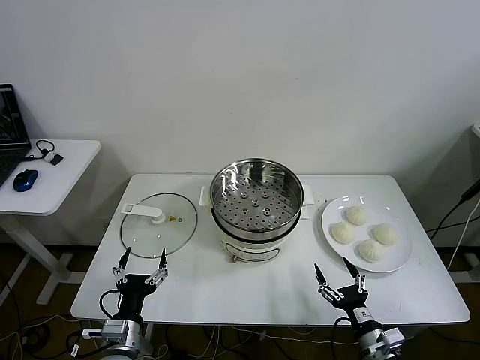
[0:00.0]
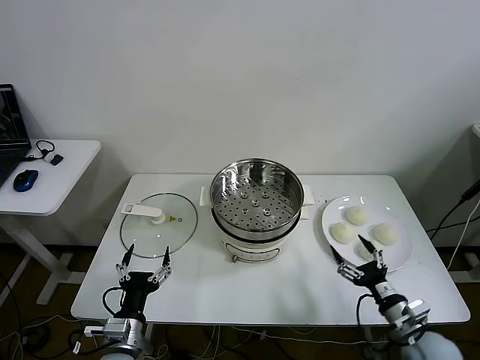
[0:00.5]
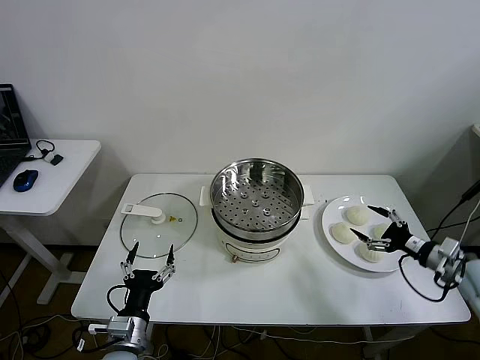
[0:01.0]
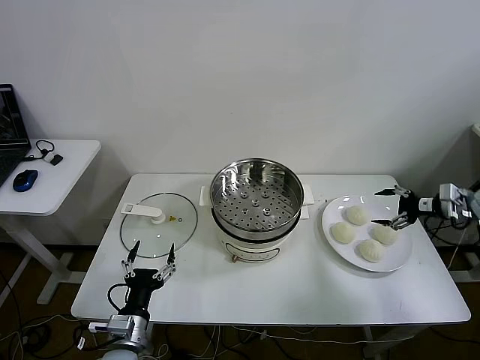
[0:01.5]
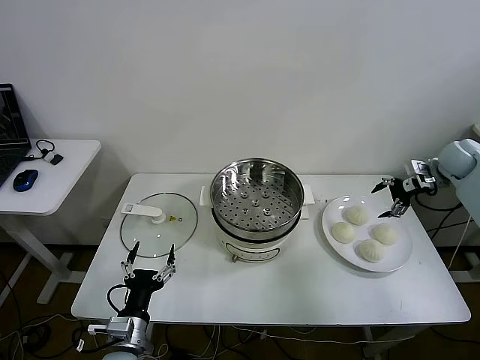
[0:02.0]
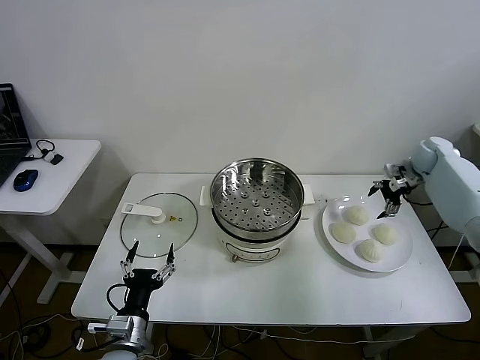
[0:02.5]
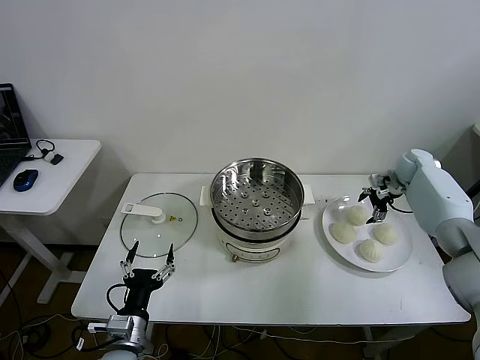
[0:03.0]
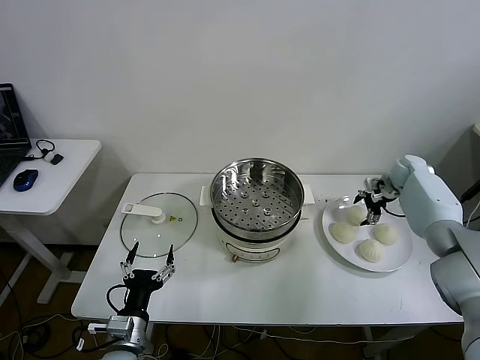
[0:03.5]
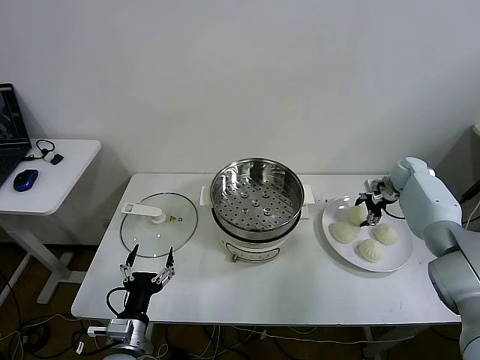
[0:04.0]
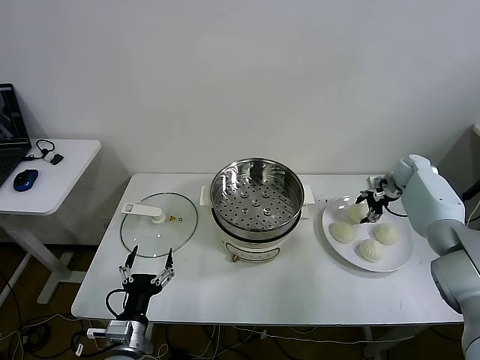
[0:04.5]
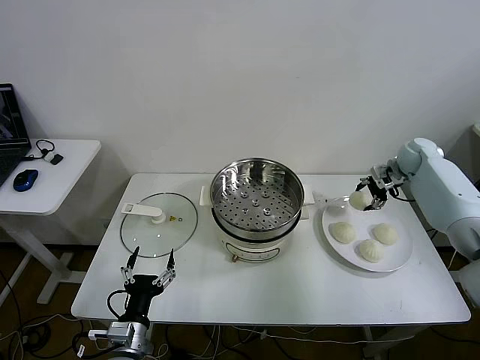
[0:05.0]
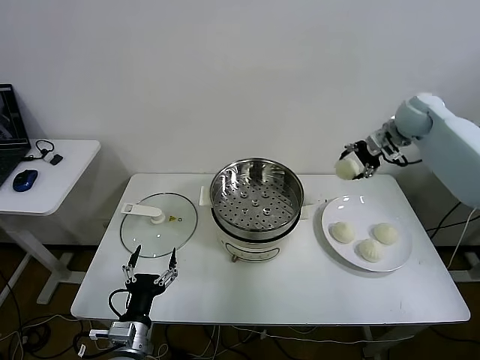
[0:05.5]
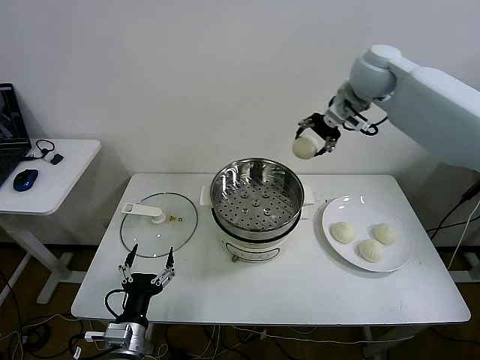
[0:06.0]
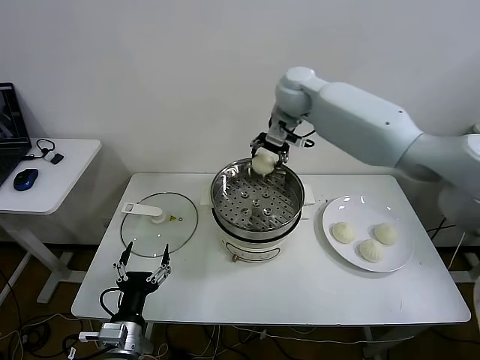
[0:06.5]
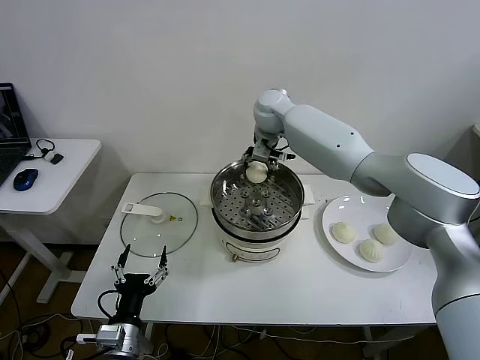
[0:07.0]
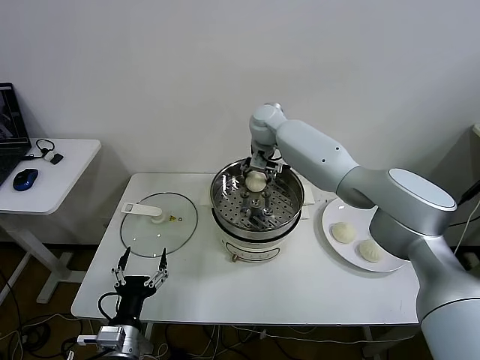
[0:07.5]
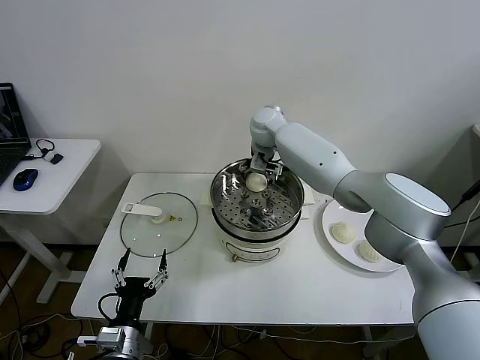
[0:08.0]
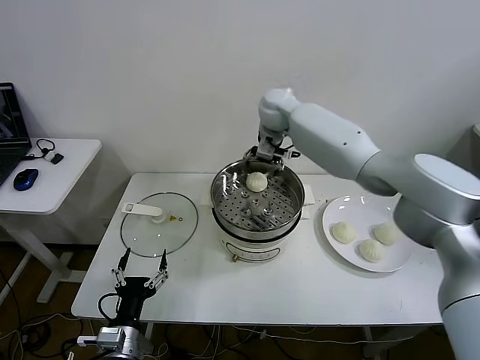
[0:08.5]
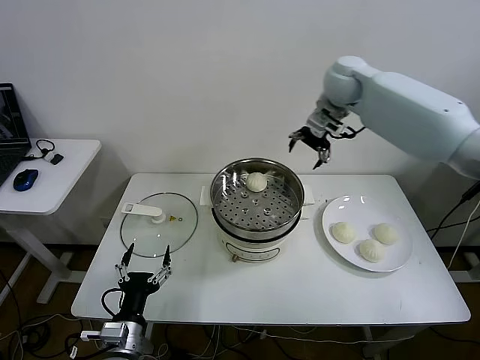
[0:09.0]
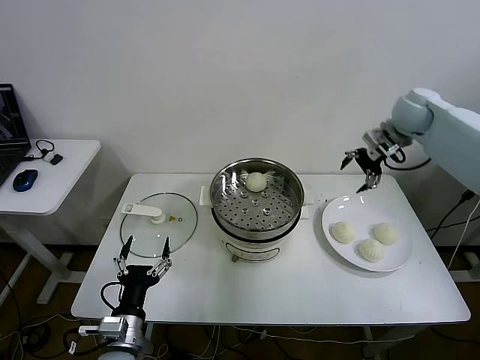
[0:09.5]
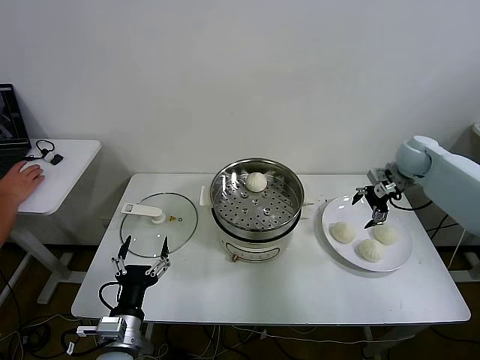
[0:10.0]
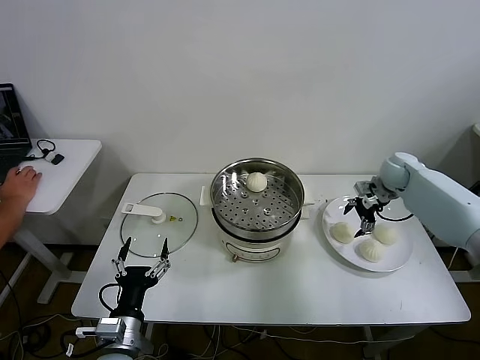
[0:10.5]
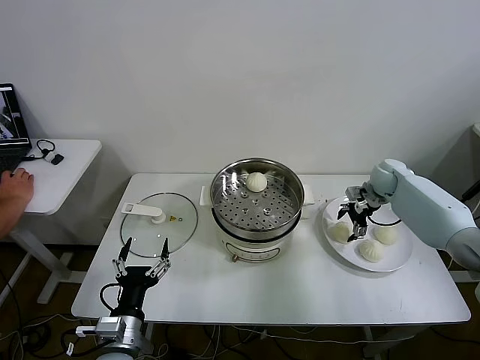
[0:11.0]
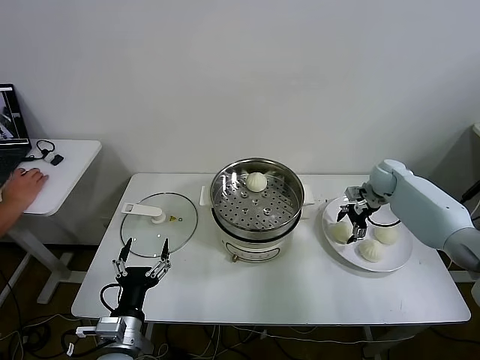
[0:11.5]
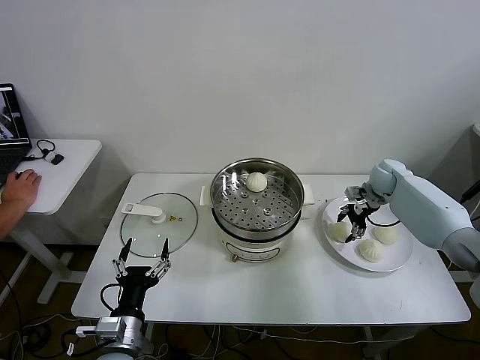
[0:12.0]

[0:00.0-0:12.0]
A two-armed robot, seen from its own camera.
Step, 0:00.0 to 0:04.0: Grasp the baozi in the plate with right gripper.
Step, 0:04.5 to 0:08.0: Place the baozi on the steamer with right gripper.
0:02.0 to 0:04.0: The right gripper moves downward and to the left, some 10 cm, and closes its fingers.
0:04.0 to 0:06.0: The right gripper heads upward and to the left, covering about 40 cm.
0:06.0 to 0:08.0: The right gripper moves to the left and downward, roughly 25 cm, and opens.
0:08.0 to 0:10.0: The right gripper heads to the right, covering approximately 35 cm.
0:10.0 to 0:12.0: The right gripper moves downward, approximately 10 cm, and closes up.

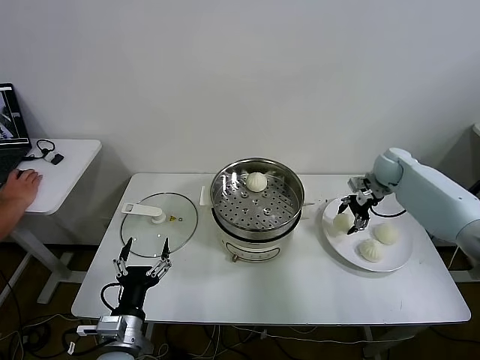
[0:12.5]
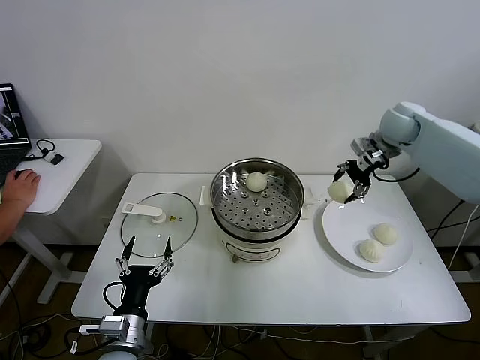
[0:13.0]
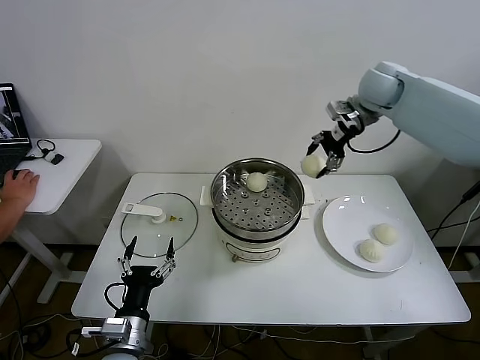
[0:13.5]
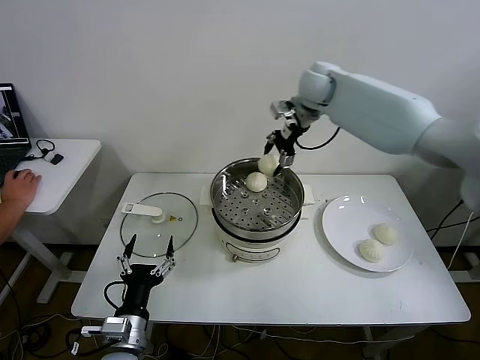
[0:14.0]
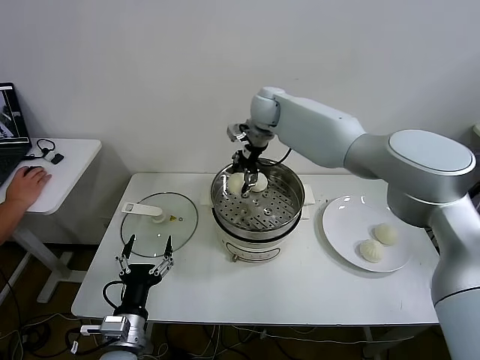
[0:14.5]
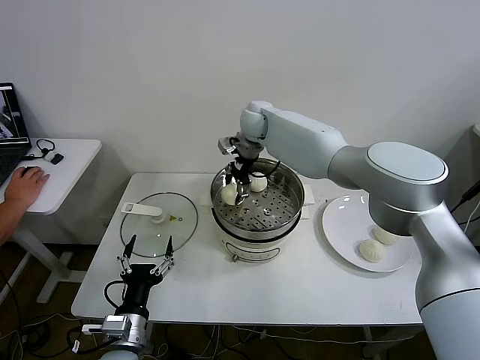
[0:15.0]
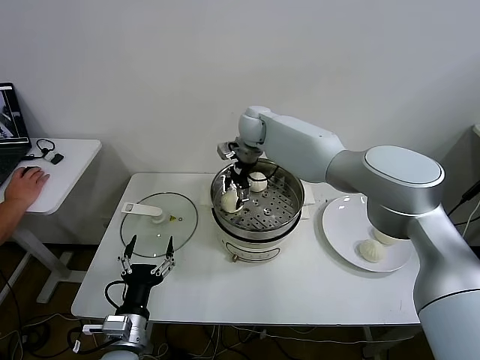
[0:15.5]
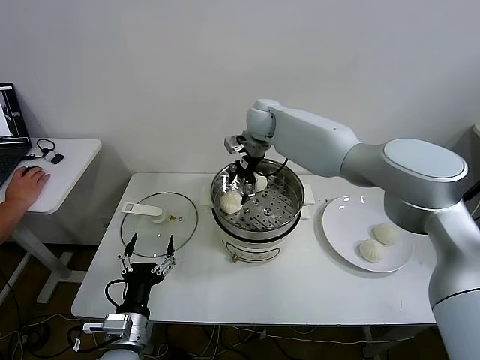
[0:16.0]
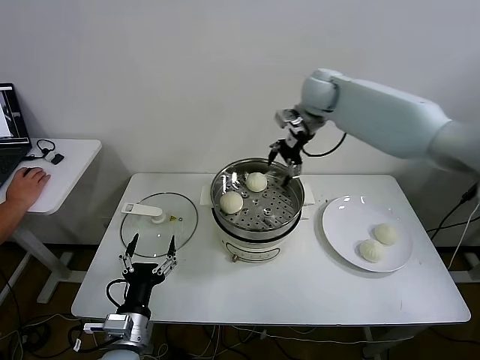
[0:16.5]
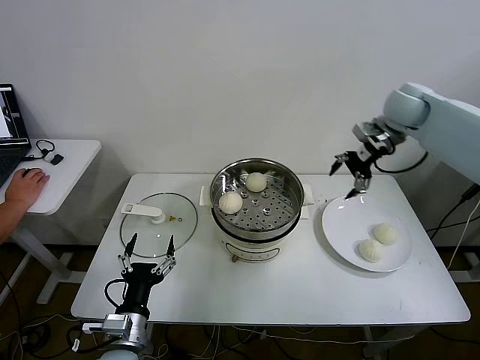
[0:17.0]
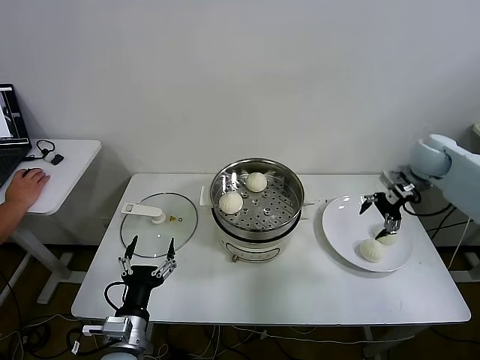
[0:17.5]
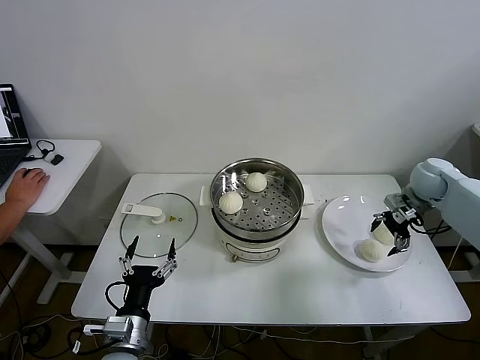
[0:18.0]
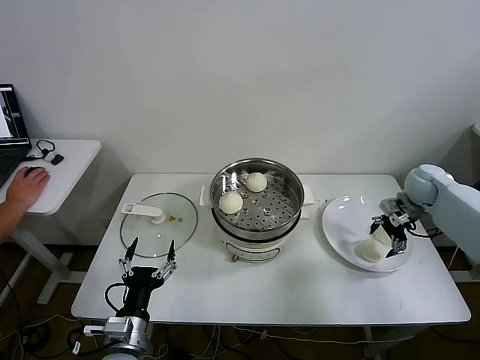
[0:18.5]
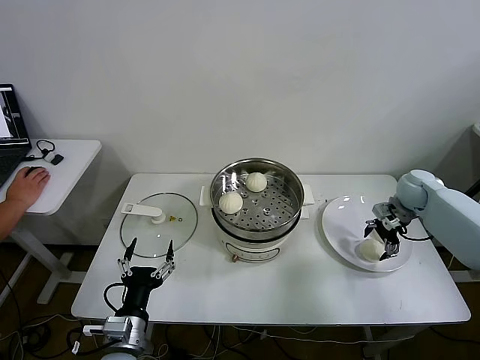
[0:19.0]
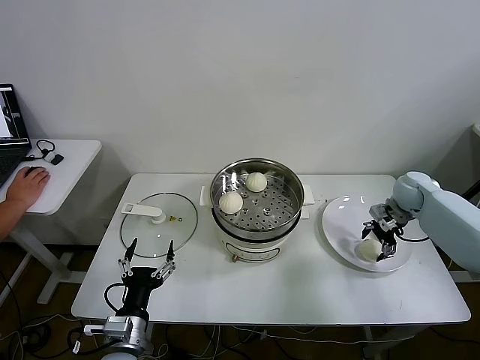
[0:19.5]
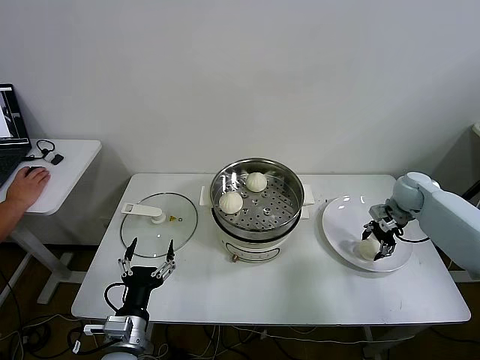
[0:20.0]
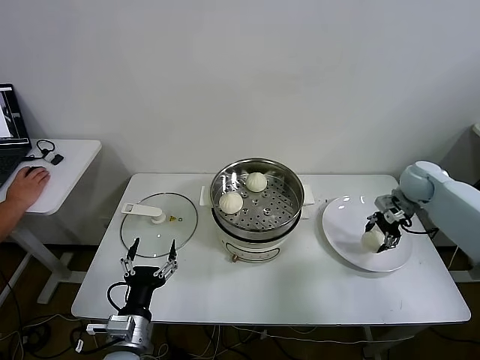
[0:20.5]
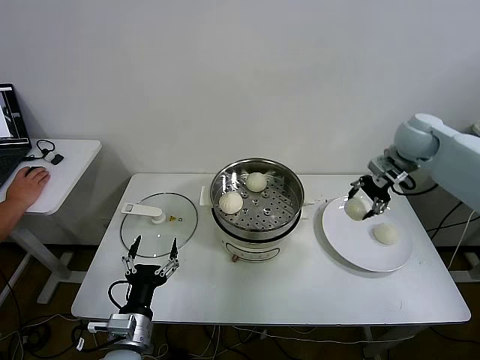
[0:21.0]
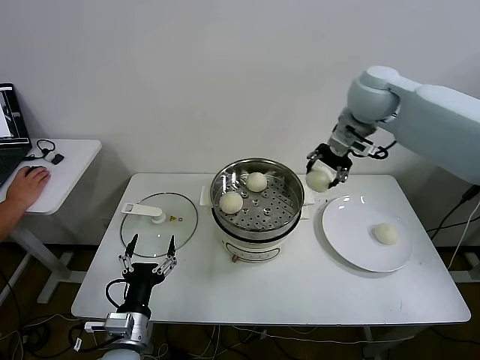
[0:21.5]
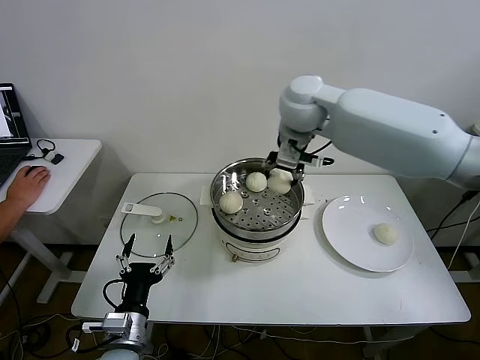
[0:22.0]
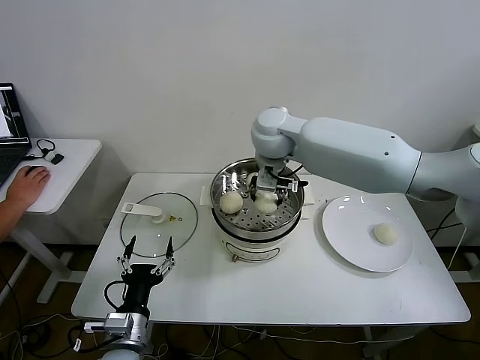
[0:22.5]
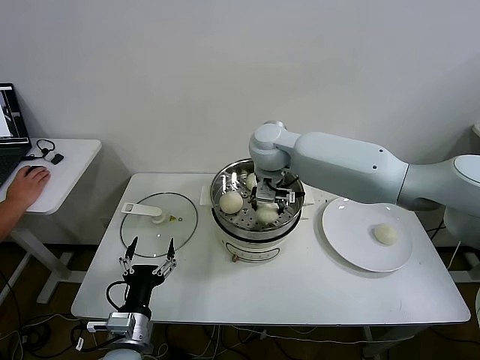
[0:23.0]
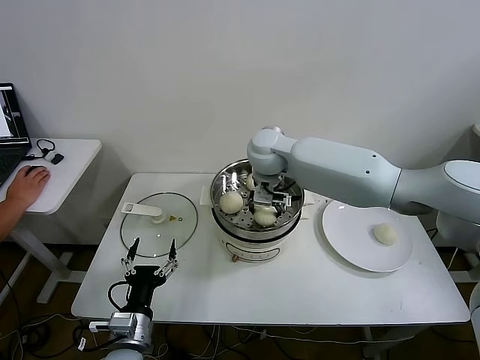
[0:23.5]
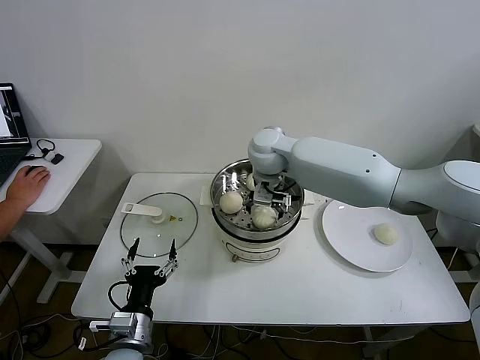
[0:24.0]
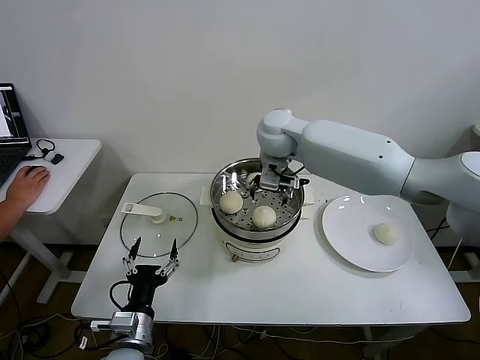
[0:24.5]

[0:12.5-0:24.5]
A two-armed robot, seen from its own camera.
Step, 0:12.5 to 0:16.0: Place the baozi on the steamer with right gripper.
Step, 0:16.5 to 0:20.0: Grasp the baozi in the plate with right gripper.
Step, 0:20.5 to 0:24.0: Place the baozi on the steamer with right gripper.
0:12.5 to 0:14.5: The right gripper is displaced to the left by some 35 cm.
0:14.5 to 0:16.5: The right gripper heads to the right and upward, covering about 15 cm, and opens its fingers.
0:16.5 to 0:18.5: The right gripper goes roughly 35 cm to the right and downward.
0:18.5 to 0:20.5: The right gripper closes up.
0:20.5 to 0:22.5: The right gripper is displaced to the left by about 40 cm.
0:22.5 to 0:24.5: The right gripper opens up.

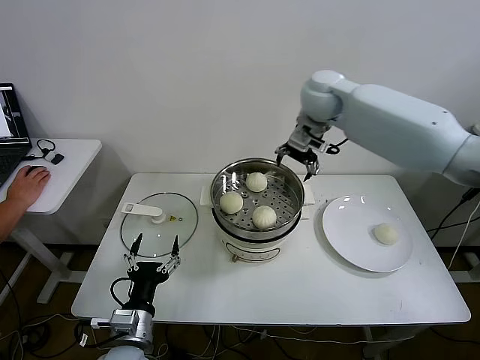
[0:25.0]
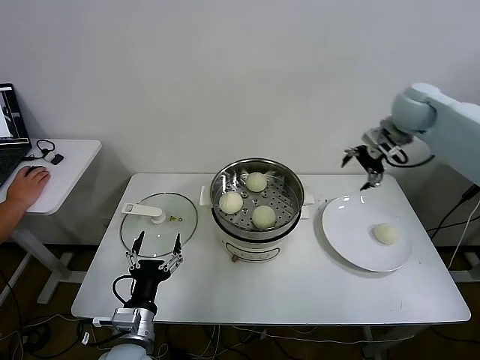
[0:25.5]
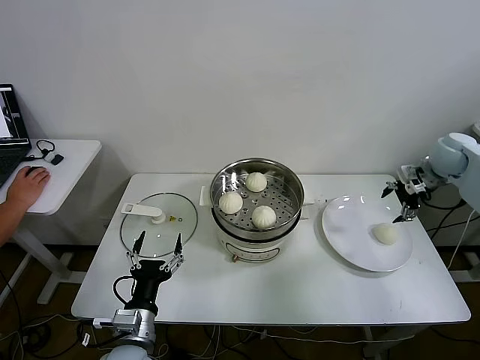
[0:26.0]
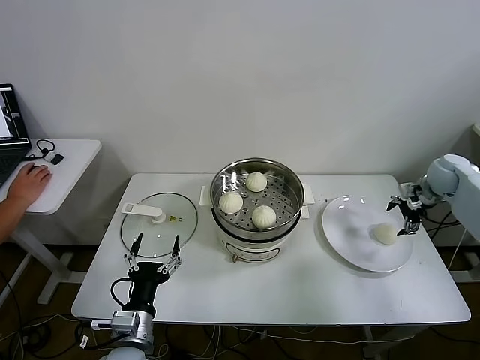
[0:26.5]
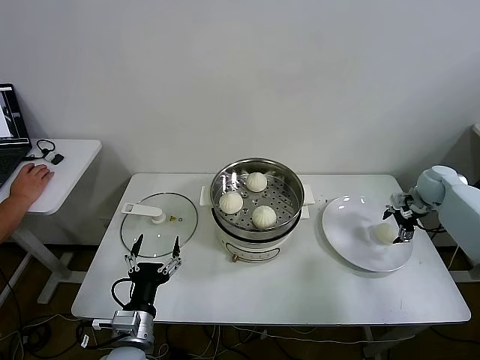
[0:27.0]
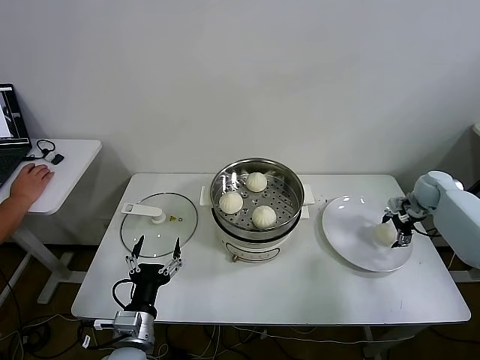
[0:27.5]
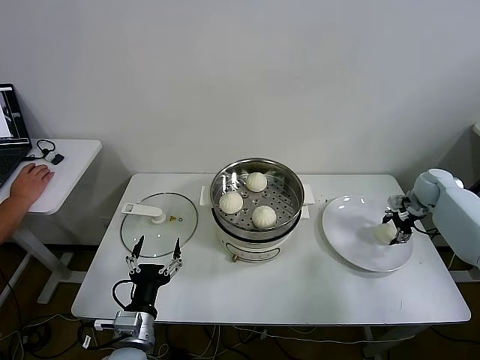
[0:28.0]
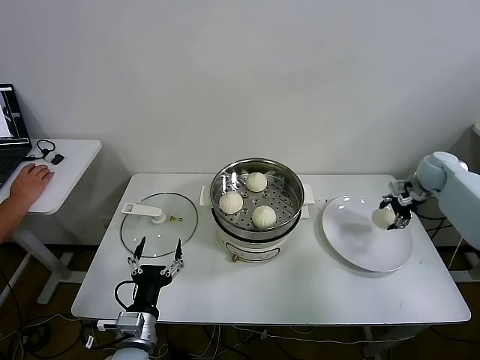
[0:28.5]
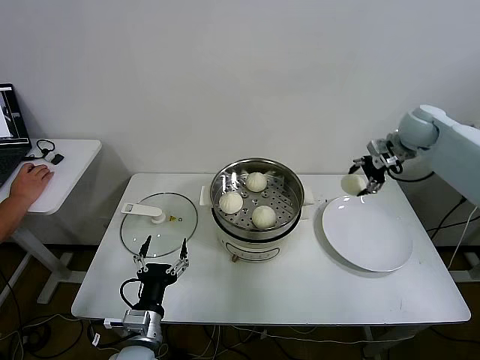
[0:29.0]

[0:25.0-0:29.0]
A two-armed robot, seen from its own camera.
Step, 0:25.0 to 0:28.0: Grasp the baozi in the plate with right gripper.
0:25.0 to 0:27.0: The right gripper shifts roughly 40 cm to the right and downward.
0:27.0 to 0:29.0: The right gripper heads upward and to the left, covering approximately 15 cm, and closes.
